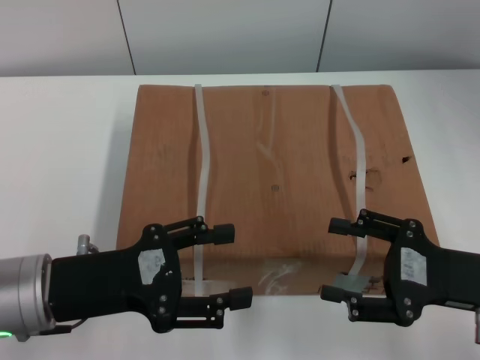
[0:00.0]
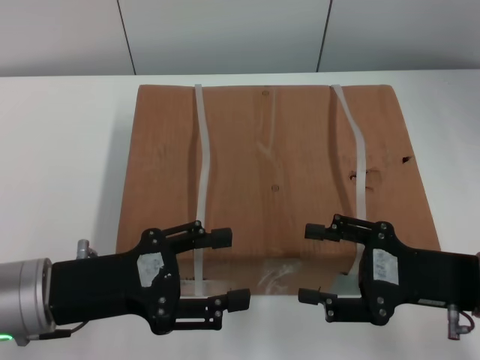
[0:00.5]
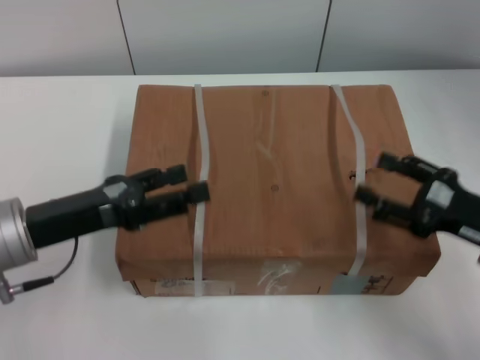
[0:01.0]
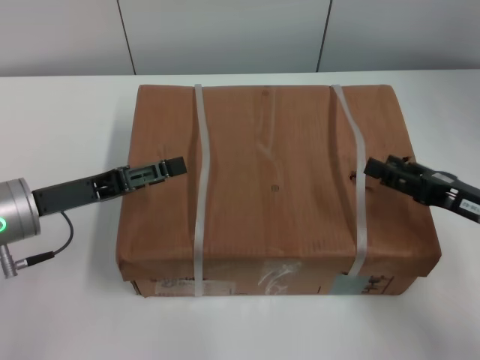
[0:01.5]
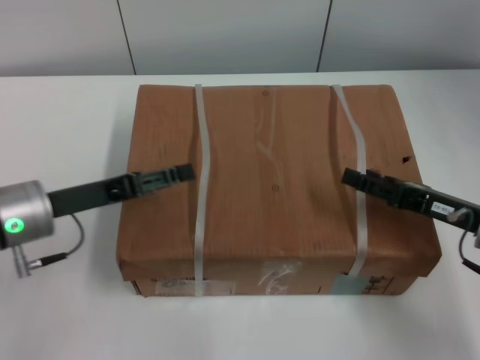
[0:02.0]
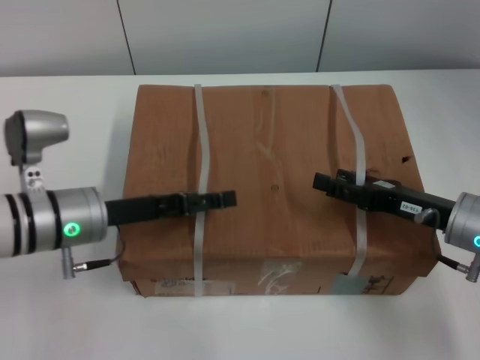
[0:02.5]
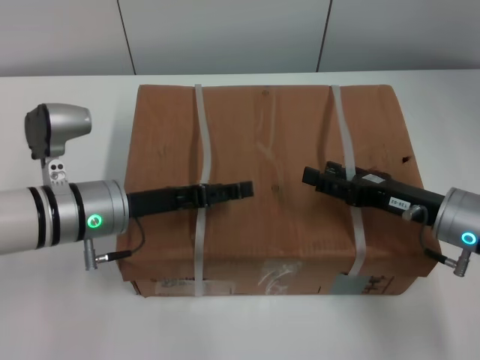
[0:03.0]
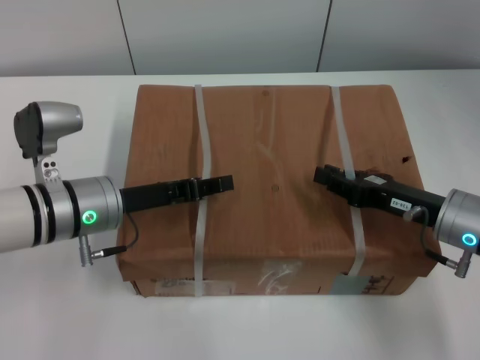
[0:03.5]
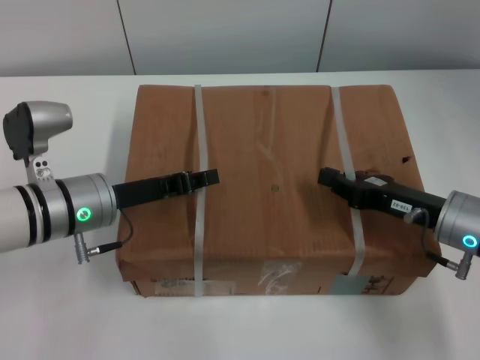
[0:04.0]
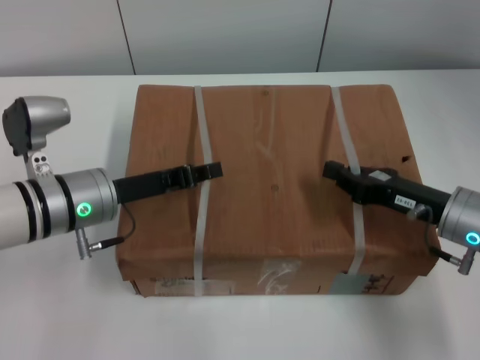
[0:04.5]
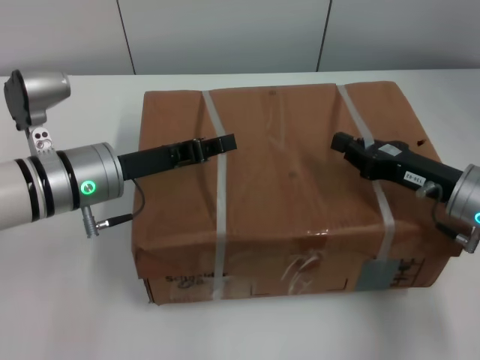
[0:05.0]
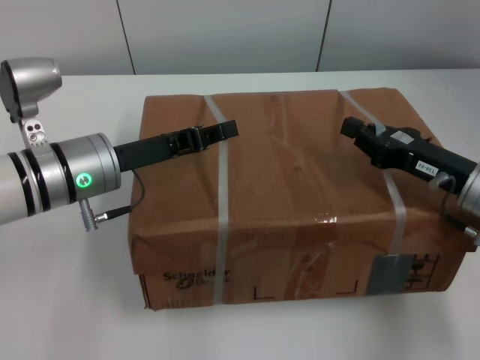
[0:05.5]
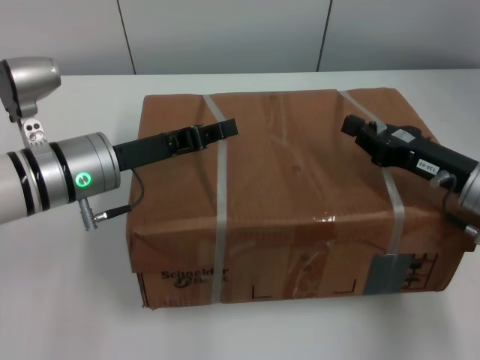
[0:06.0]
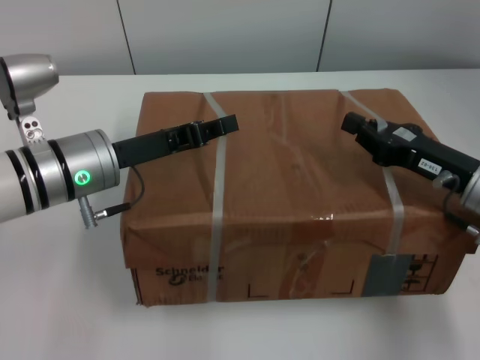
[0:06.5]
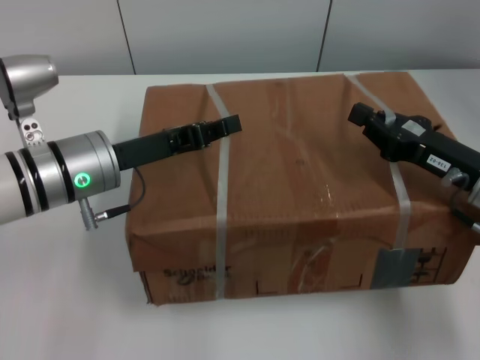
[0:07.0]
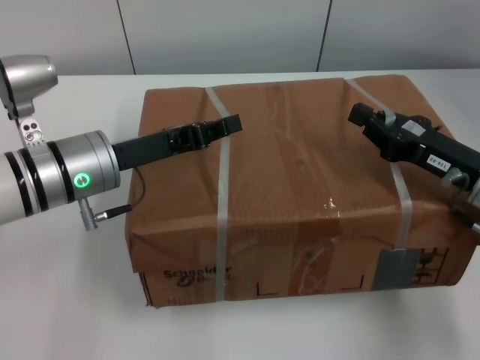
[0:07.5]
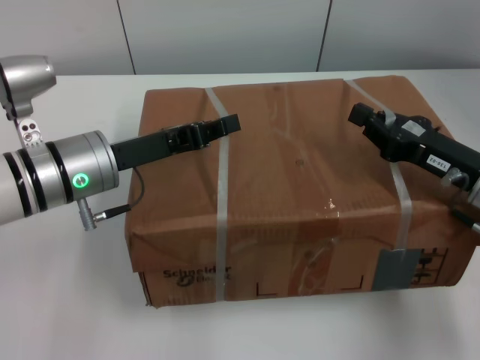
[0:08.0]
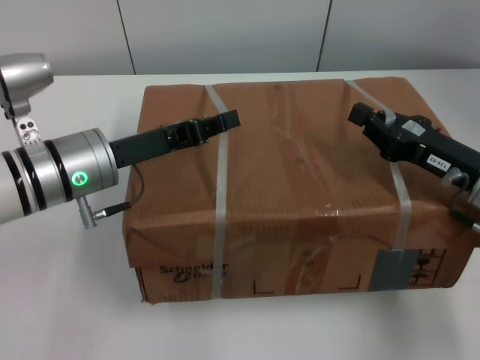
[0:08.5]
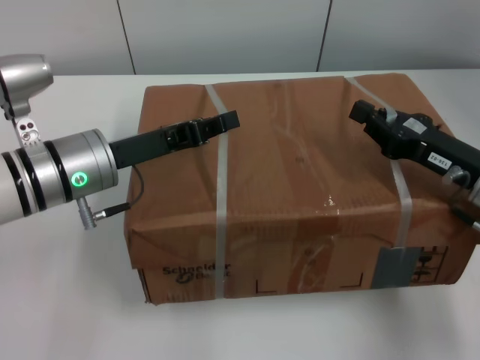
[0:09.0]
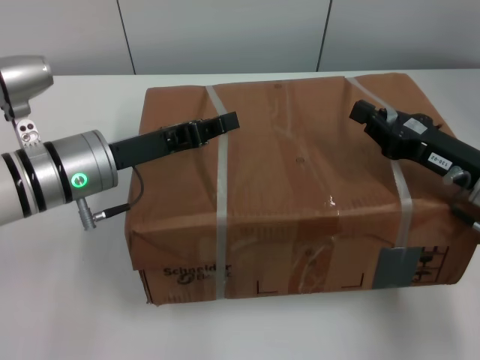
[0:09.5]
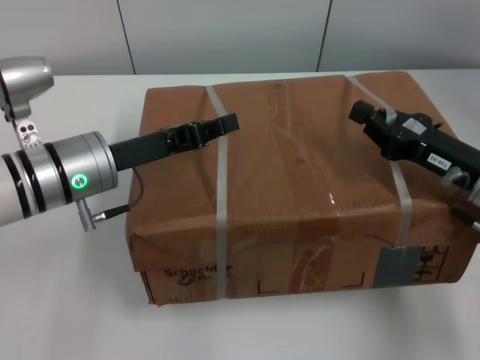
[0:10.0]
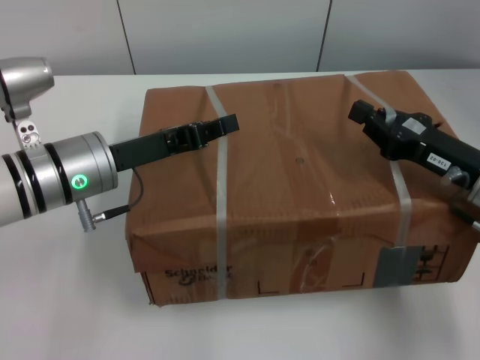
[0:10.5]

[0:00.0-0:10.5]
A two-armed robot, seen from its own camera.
Task of the whole recording: pick up the box from the table with both arms.
Step, 0:00.0 to 0:03.5: Grasp the bandage with left gripper.
Step, 0:00.0 to 0:03.5: Grasp the bandage with right gripper.
Step, 0:04.0 to 0:07.0: Lift the box with left gripper.
Step, 0:04.0 to 0:07.0: Lift the box with right gripper.
0:00.0 to 0:02.0: Both grippers move forward, some 5 cm.
0:02.0 to 0:04.0: The left gripper goes about 5 cm to the right, and closes its fingers. The right gripper closes up.
0:06.5 to 0:10.5: The two grippers keep their place.

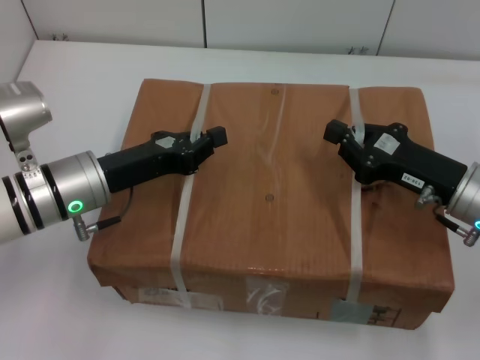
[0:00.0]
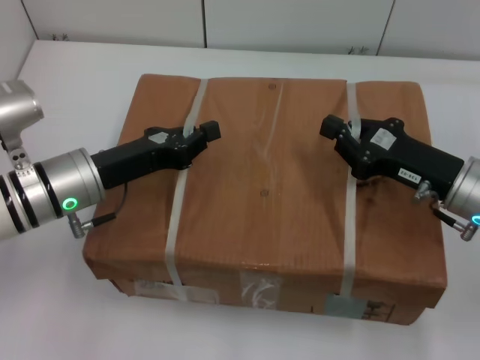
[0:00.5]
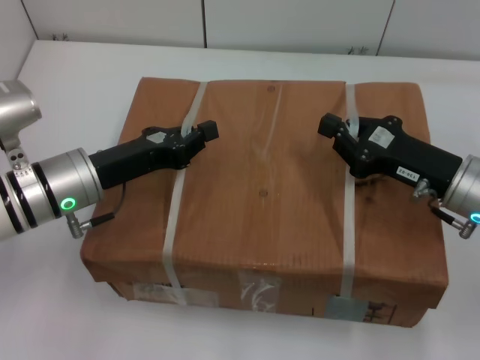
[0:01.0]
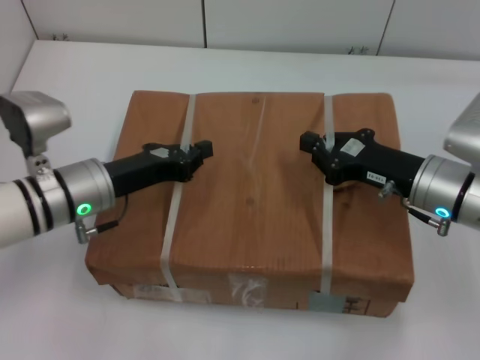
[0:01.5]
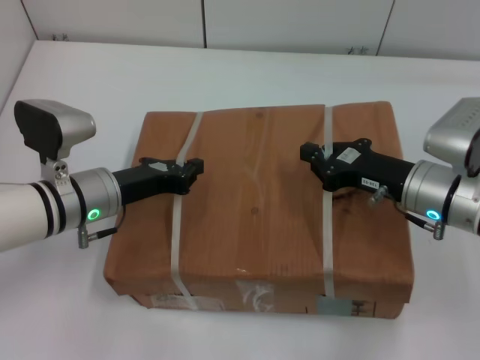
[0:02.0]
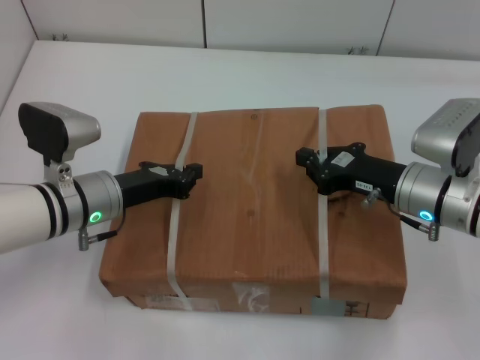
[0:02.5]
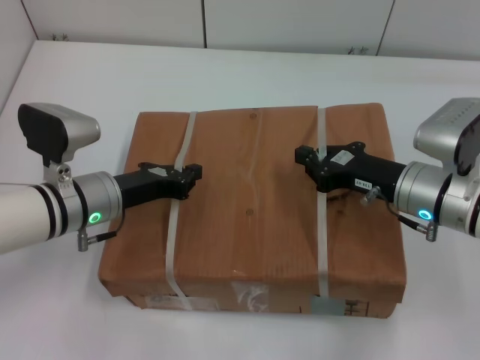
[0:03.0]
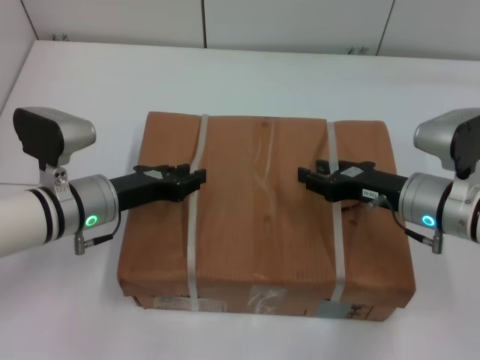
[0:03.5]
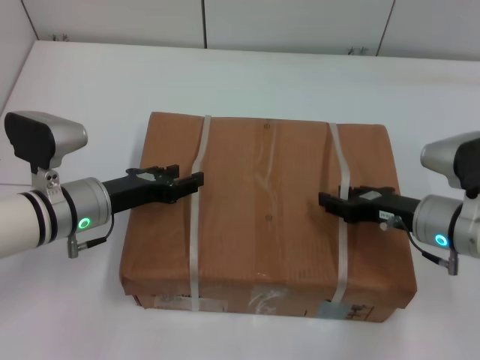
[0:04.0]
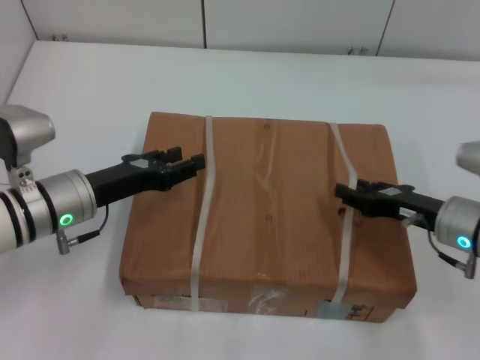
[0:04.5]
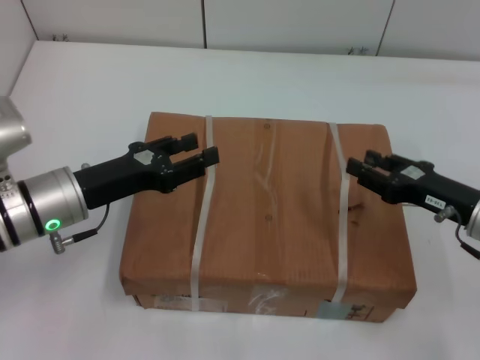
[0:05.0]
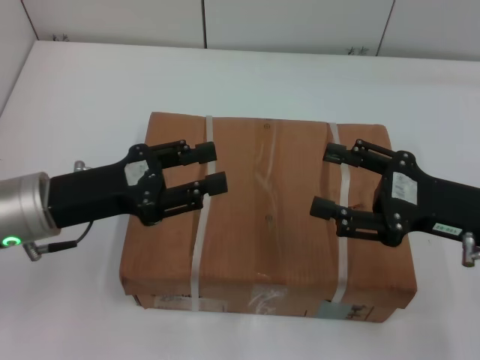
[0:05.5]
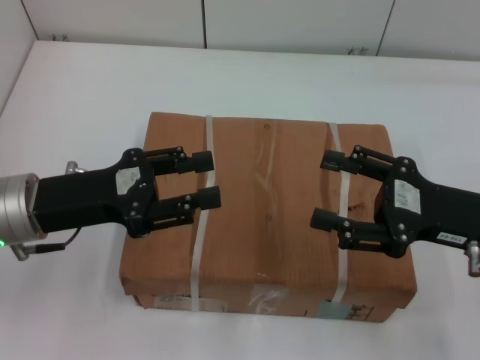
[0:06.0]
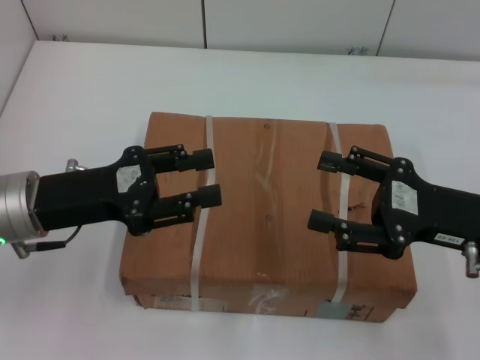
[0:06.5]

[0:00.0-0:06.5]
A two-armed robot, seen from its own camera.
Task of the whole recording: place the box on the table with both arms.
Step, 0:00.0 to 0:02.0: Place the box on the table with left gripper.
Step, 0:00.0 to 0:02.0: Place the box on the table with right gripper.
Step, 0:02.5 to 0:03.5: Loosen the box on the table with left gripper.
Step, 0:02.5 to 0:03.5: Loosen the box on the table with right gripper.
0:02.0 to 0:04.5: The right gripper moves about 5 cm, and opens its fingers; the left gripper opens.
0:04.5 to 0:06.5: Both grippers move upward, about 10 cm. The right gripper opens up.
